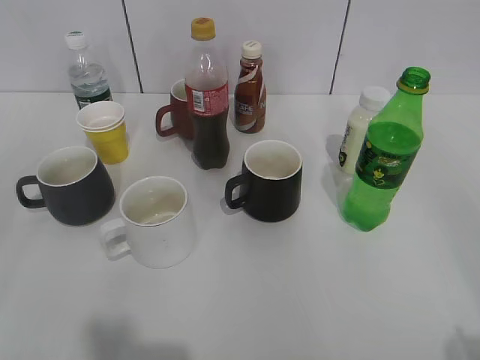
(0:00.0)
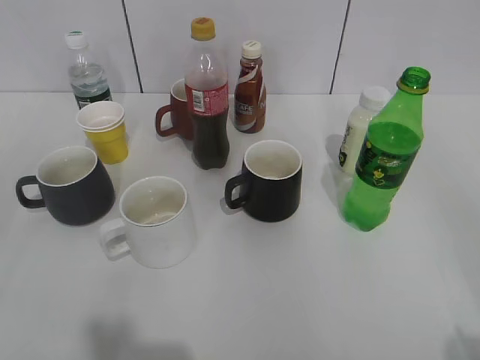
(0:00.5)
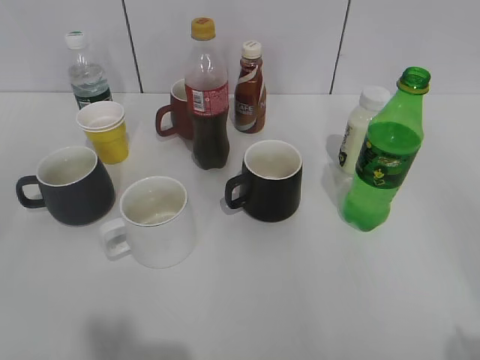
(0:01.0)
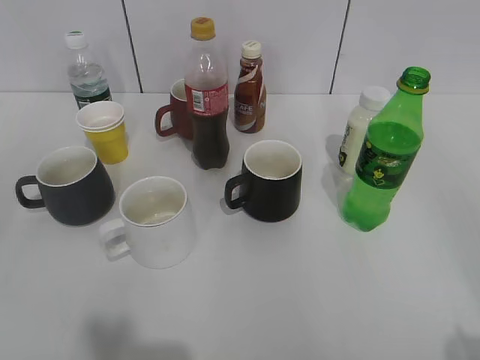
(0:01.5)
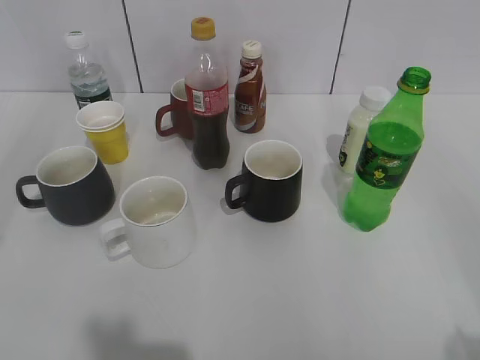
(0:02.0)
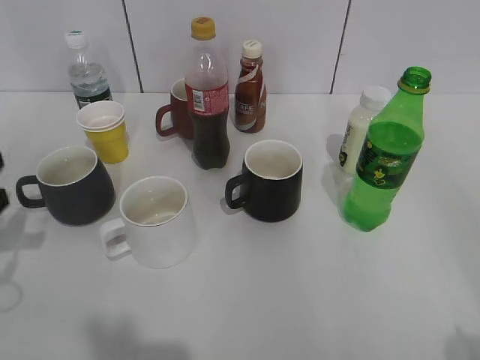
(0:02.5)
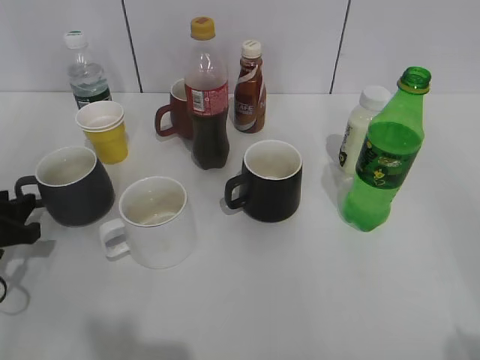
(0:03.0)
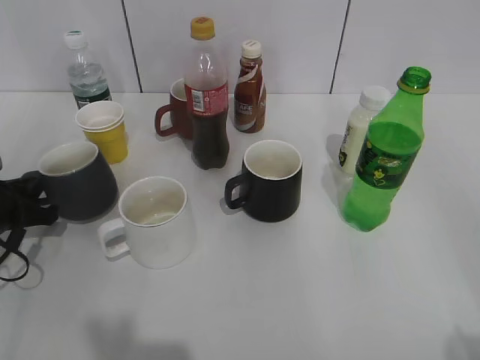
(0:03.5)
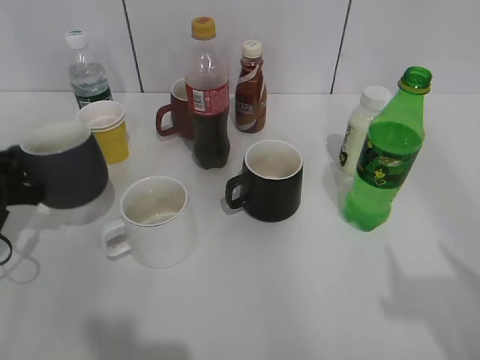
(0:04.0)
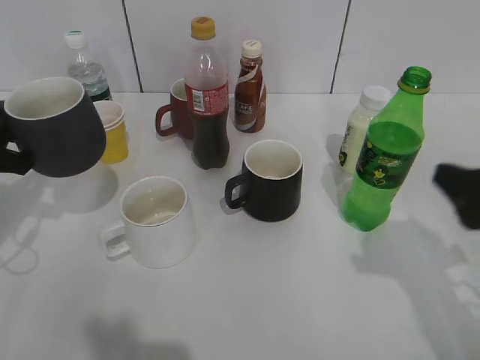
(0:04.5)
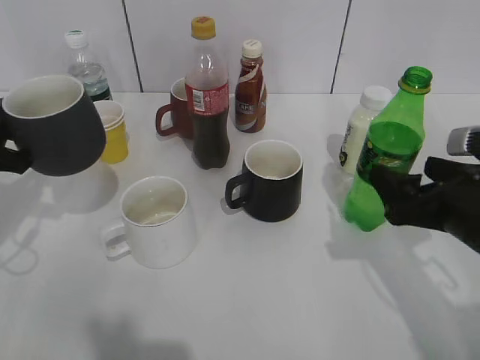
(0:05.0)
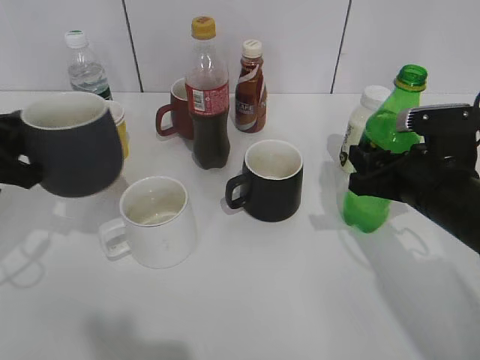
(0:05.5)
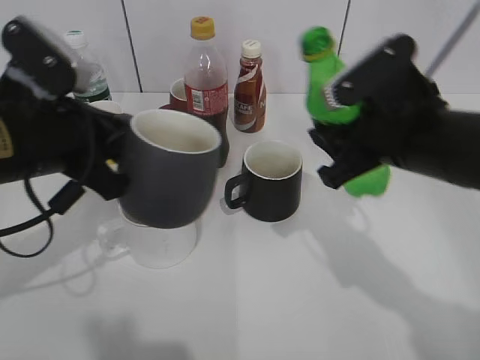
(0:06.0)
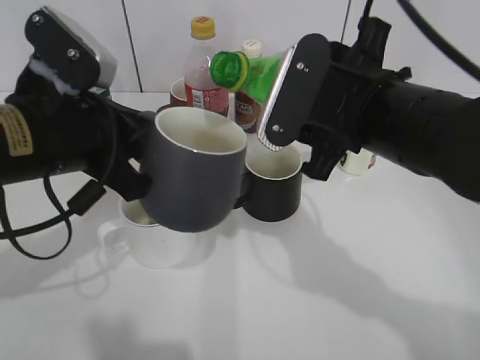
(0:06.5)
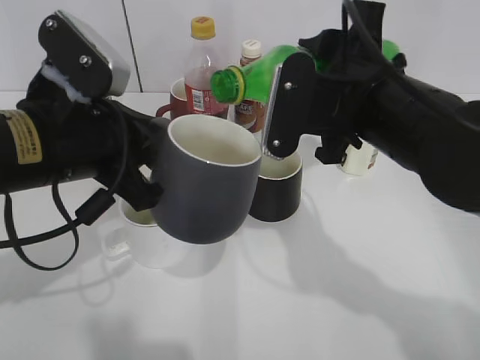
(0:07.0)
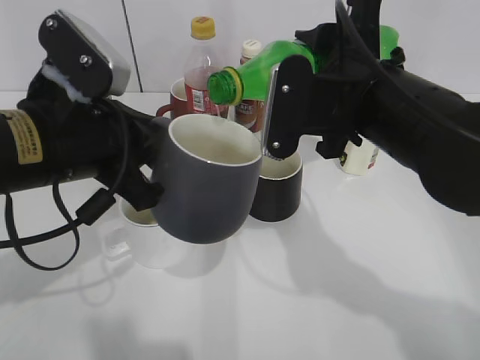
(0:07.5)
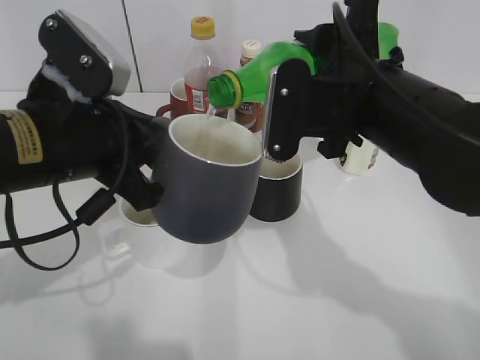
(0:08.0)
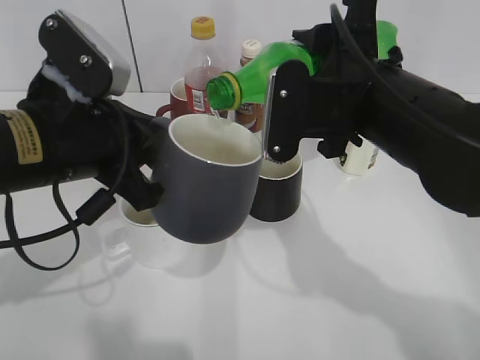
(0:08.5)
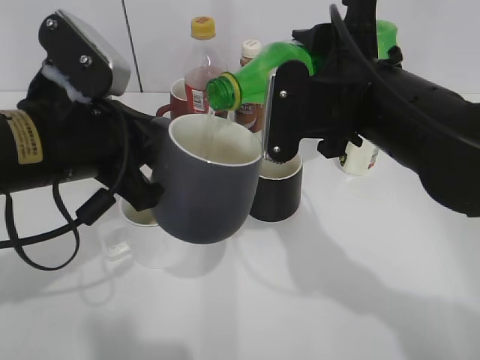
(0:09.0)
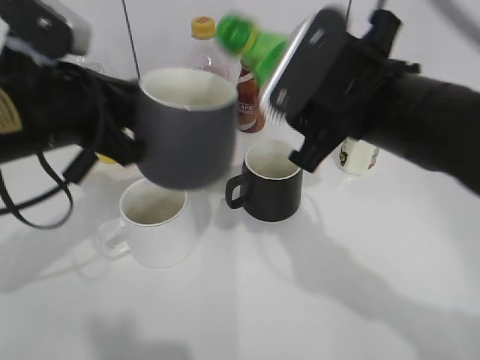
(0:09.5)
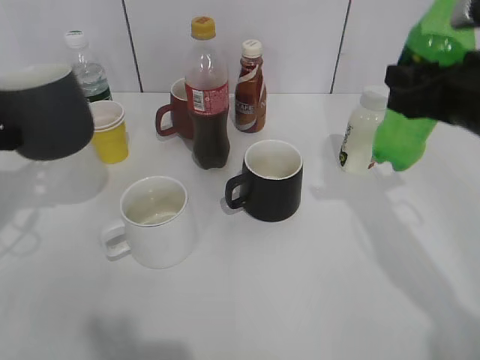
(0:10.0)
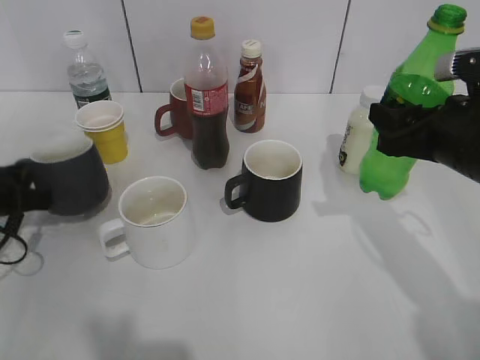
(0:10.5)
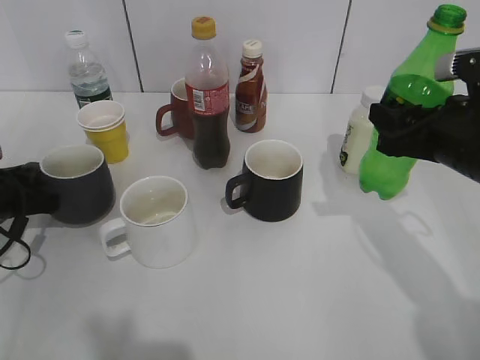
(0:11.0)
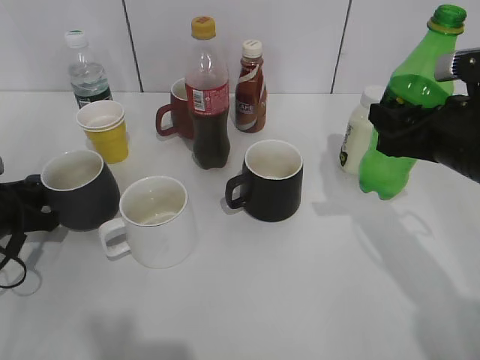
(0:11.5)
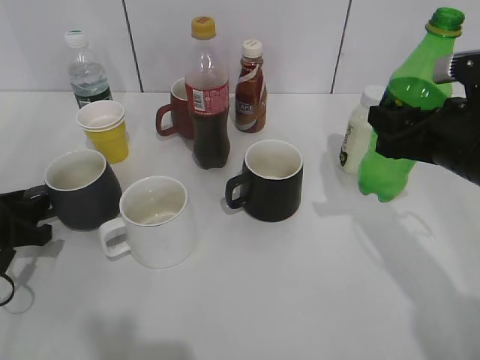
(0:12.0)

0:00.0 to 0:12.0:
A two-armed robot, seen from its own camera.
Step, 0:02.5 to 0:03.5: Grasp the grey cup with left gripper.
Step, 0:04.5 to 0:05.5: Grasp the bottle with sprite with right gripper.
Step, 0:06.0 to 0:09.5: Pour the sprite from bottle to cup with right gripper.
0:02.0 to 0:04.0: The right gripper shifts by about 5 cm. Meanwhile the left gripper shifts approximately 25 cm downward and forward, and closes its fingers.
0:04.0 to 0:06.0: The right gripper shifts some 30 cm forward, to the left and downward, and closes its fingers, while the left gripper is displaced to the right and upward by about 15 cm.
0:06.0 to 0:08.0: The right gripper ends up roughly 5 cm from where it was.
0:08.0 to 0:10.0: The left gripper shifts approximately 15 cm to the left, while the right gripper heads to the right, covering approximately 10 cm.
0:10.0 to 0:12.0: The left gripper moves downward, about 15 cm, and opens.

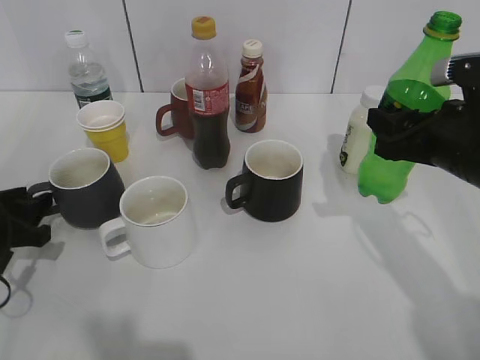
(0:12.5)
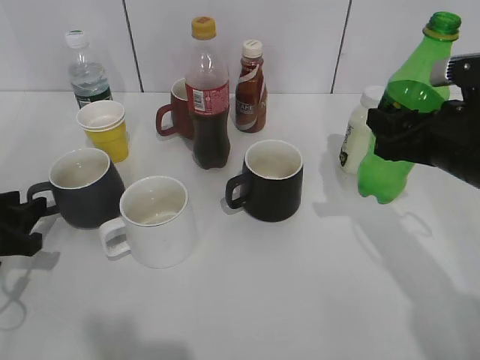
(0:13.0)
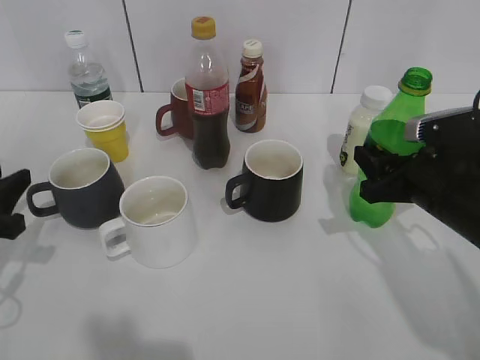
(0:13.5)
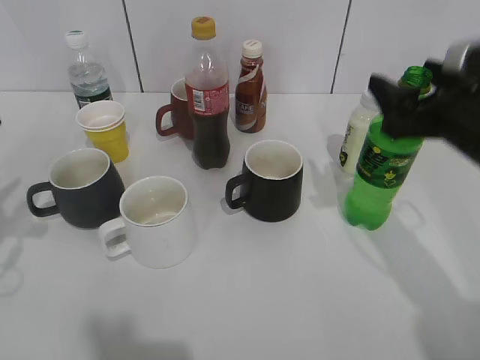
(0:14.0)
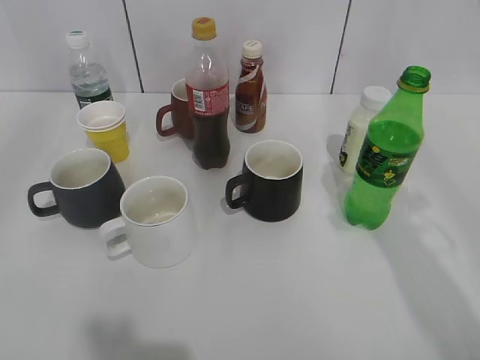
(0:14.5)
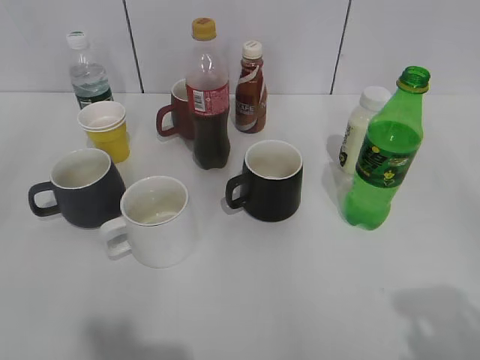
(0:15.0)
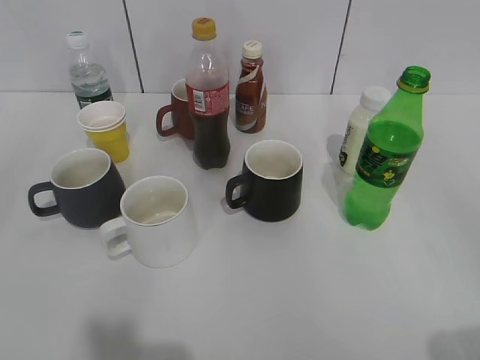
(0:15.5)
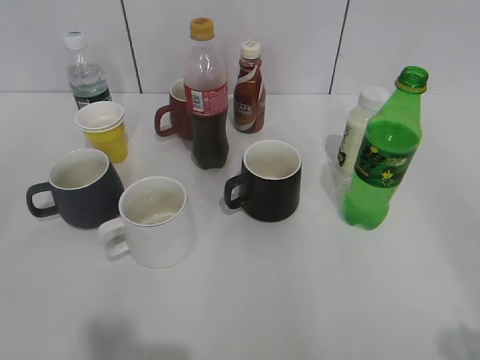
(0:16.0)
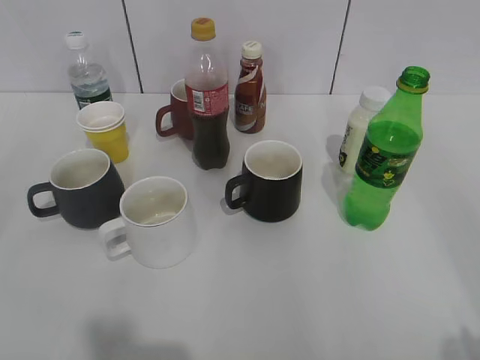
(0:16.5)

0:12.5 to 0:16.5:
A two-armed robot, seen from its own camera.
Step, 0:13.0 to 0:14.0: Place the sprite bottle on the table with right gripper.
0:12.5 to 0:14.5: Both grippers travel together upward and backward, approximately 20 cm. The right gripper opens.

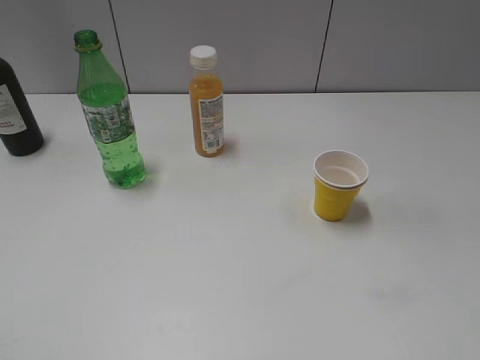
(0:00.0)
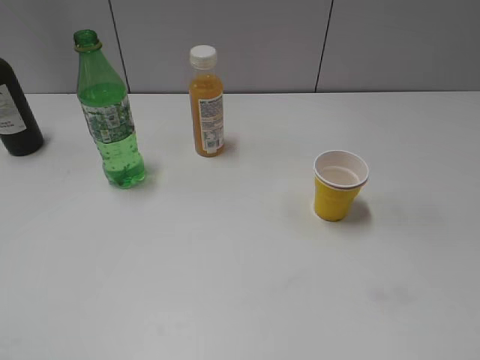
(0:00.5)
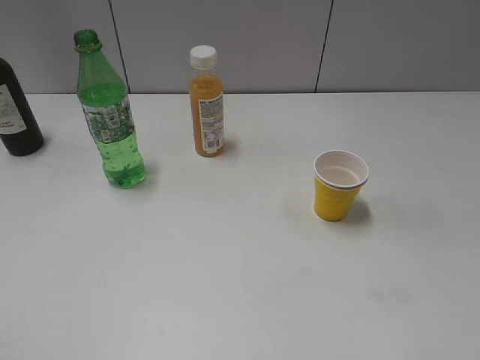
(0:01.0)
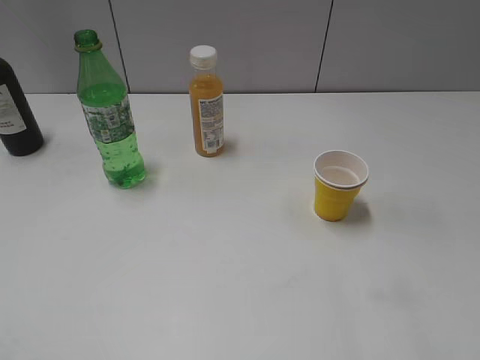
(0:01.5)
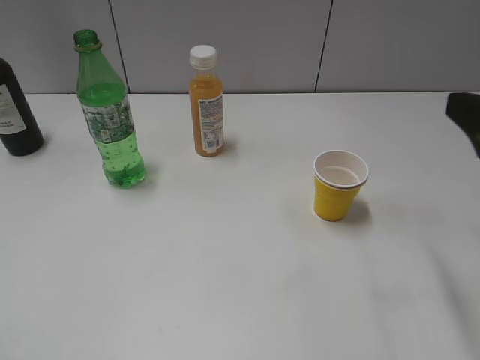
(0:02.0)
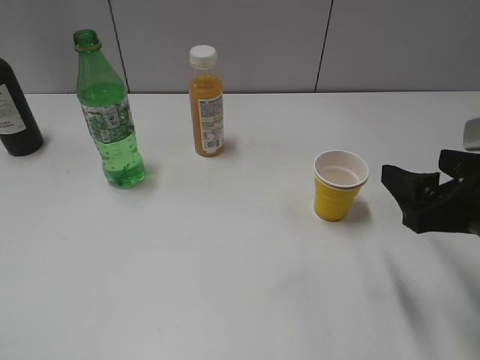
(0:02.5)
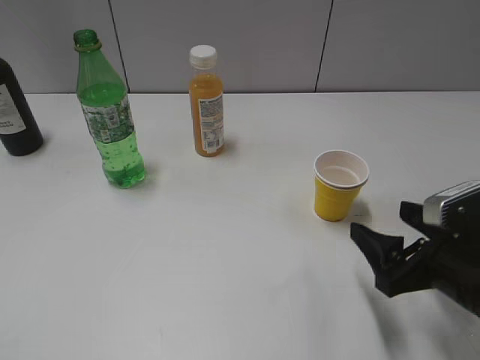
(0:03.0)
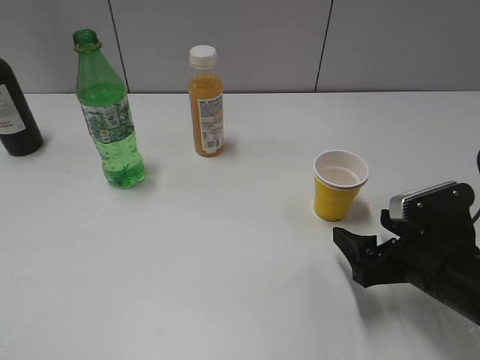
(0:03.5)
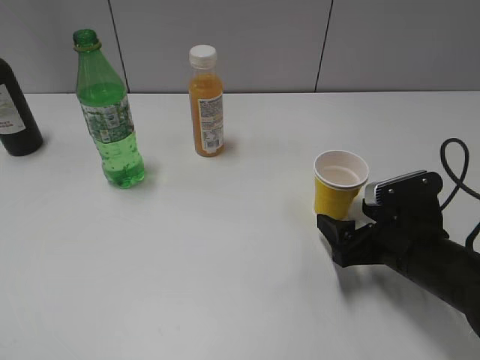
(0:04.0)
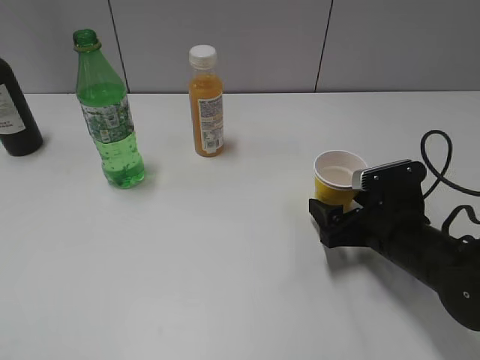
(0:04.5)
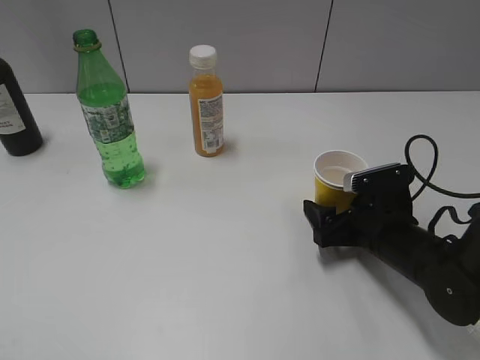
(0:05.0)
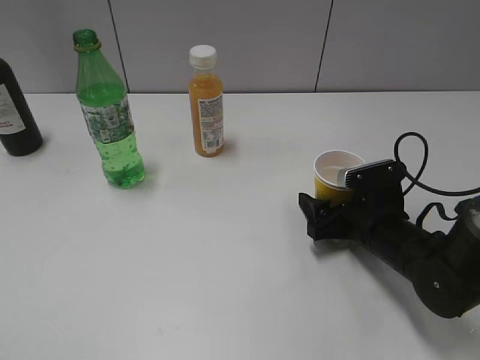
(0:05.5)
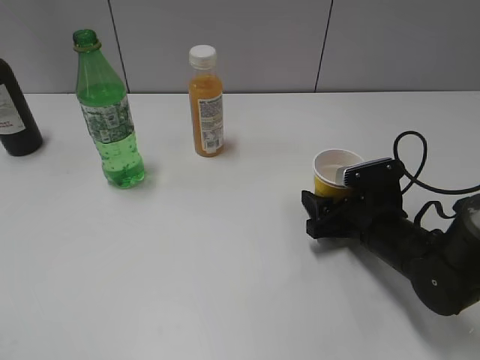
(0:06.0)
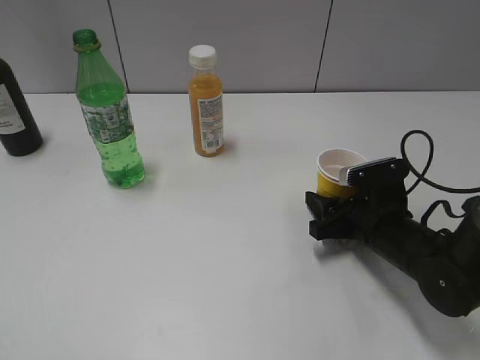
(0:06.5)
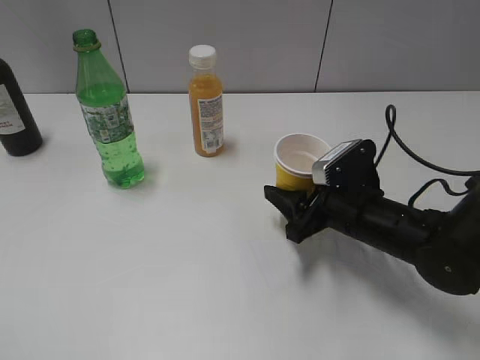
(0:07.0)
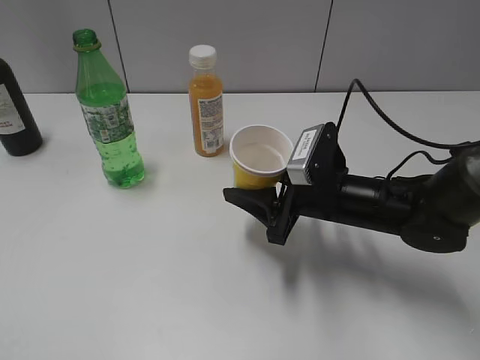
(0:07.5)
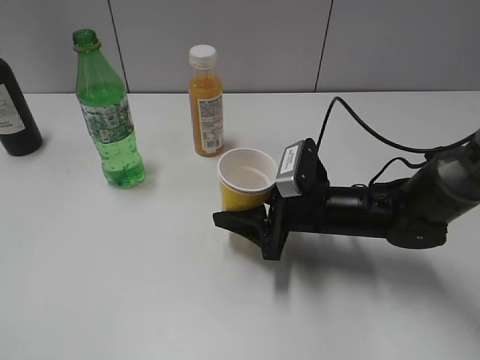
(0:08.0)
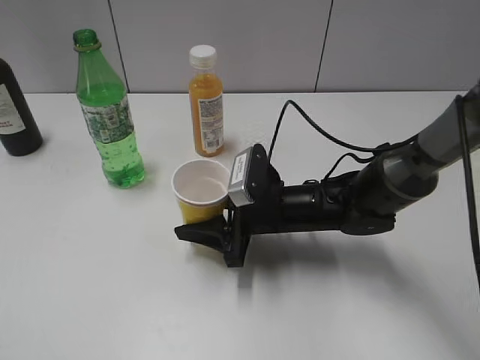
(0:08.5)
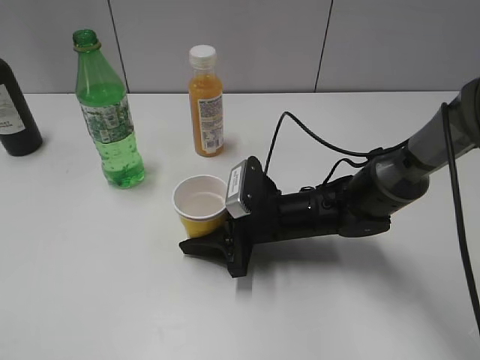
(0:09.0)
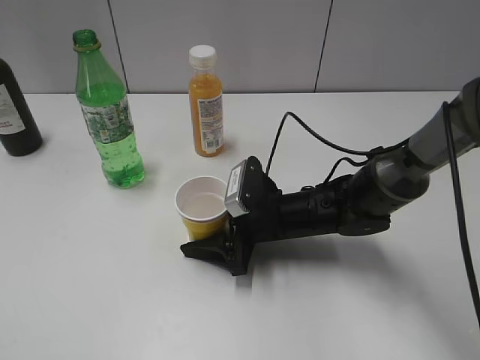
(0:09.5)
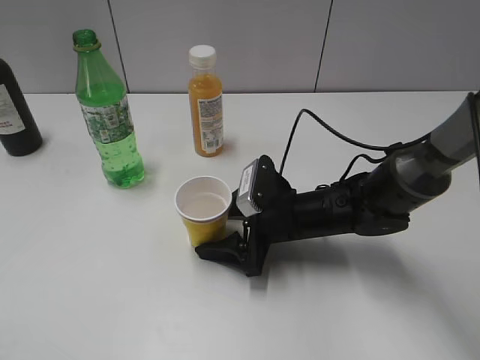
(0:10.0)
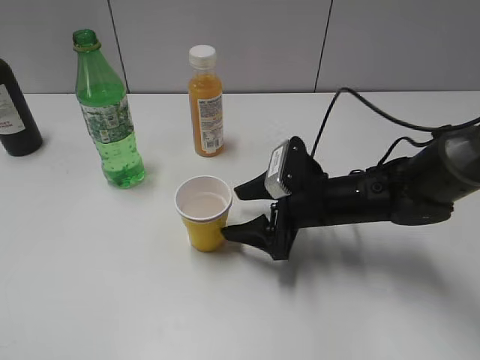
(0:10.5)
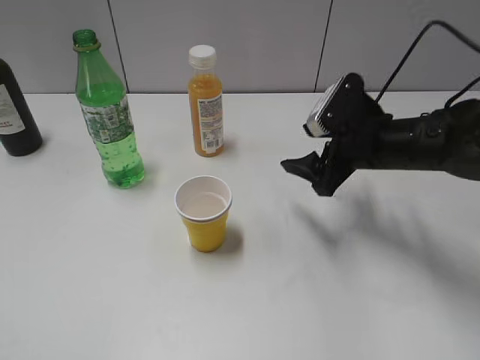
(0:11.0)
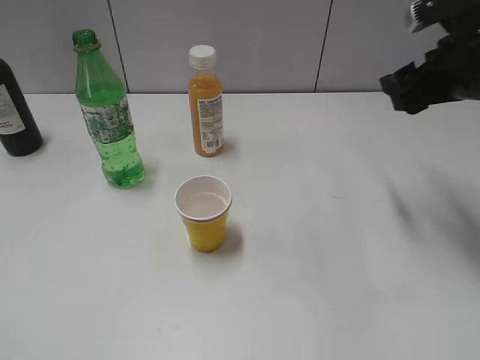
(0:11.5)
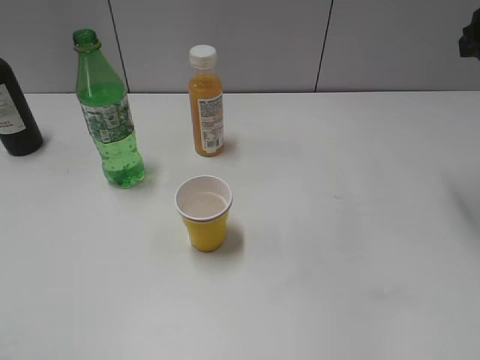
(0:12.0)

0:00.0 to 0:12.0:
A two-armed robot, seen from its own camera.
Step, 0:00.0 to 0:06.0: Grasp the yellow paper cup with right gripper.
Step, 0:06.5 to 0:10.5: Place the yellow paper cup on the table with right gripper.
0:02.0 to 0:04.0: The right gripper goes some 20 cm downward.
0:04.0 to 0:06.0: The right gripper is displaced forward by roughly 5 cm, and closes its fingers.
0:06.0 to 0:08.0: The right gripper goes about 10 cm to the left.
0:08.0 to 0:10.0: The right gripper opens.
0:10.0 to 0:12.0: The right gripper is displaced upward and to the right by some 35 cm.
